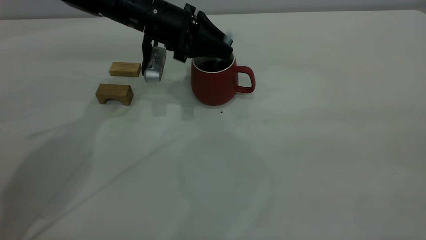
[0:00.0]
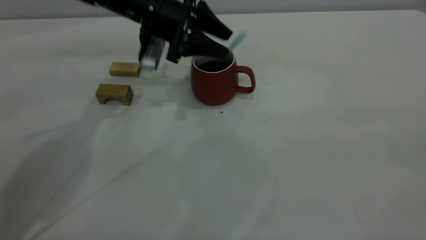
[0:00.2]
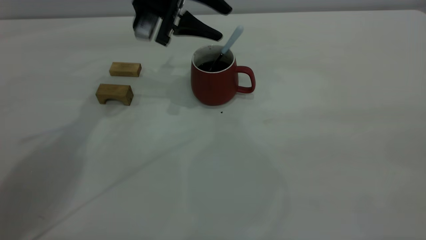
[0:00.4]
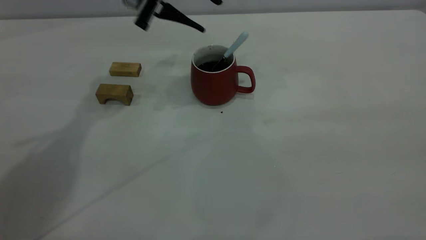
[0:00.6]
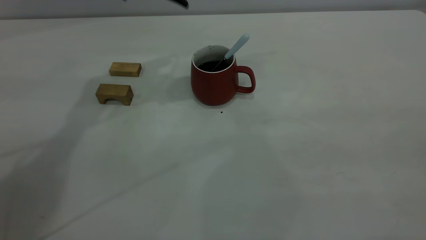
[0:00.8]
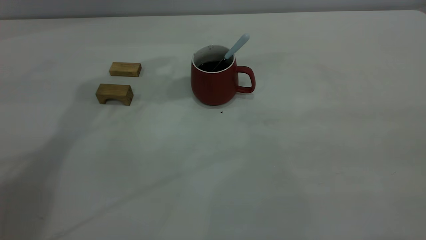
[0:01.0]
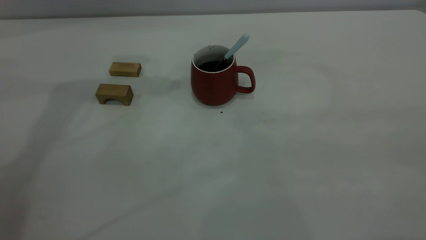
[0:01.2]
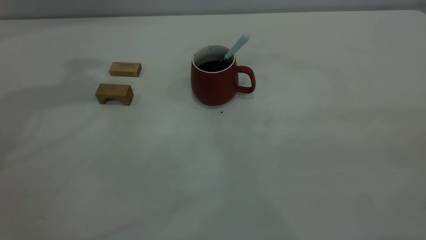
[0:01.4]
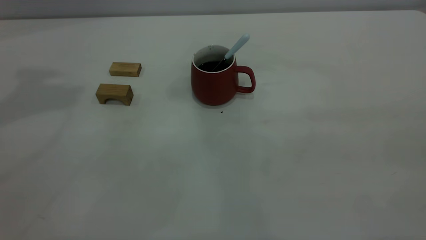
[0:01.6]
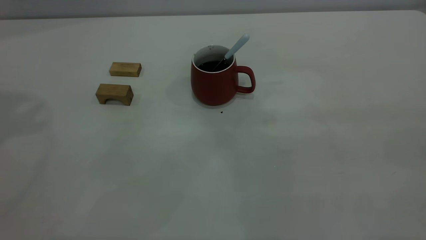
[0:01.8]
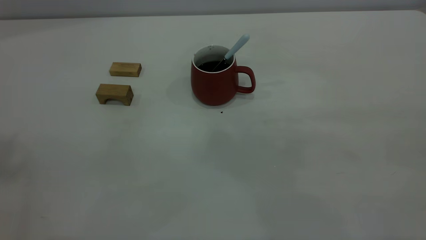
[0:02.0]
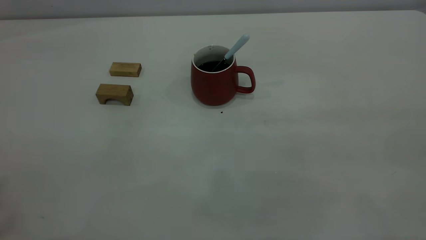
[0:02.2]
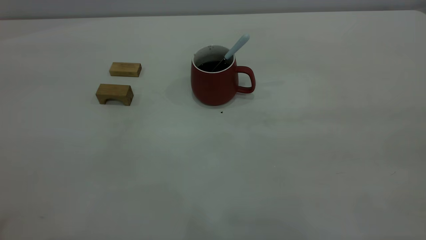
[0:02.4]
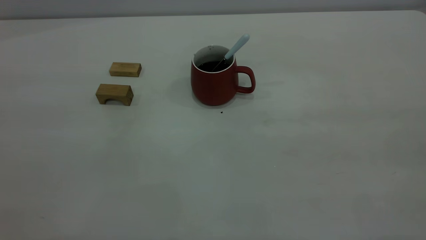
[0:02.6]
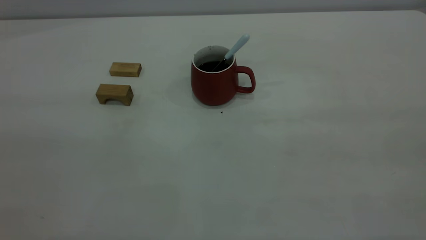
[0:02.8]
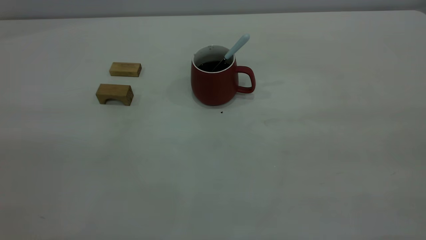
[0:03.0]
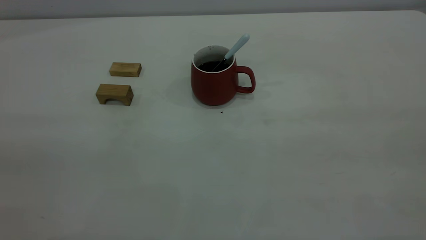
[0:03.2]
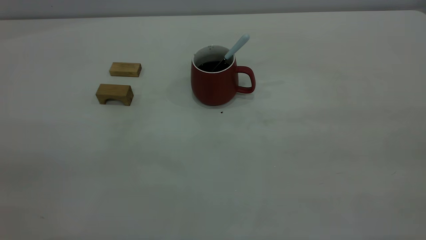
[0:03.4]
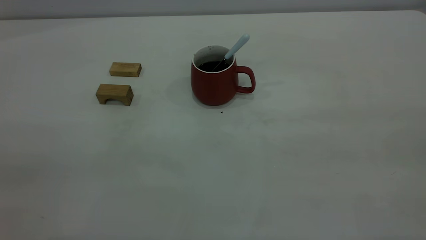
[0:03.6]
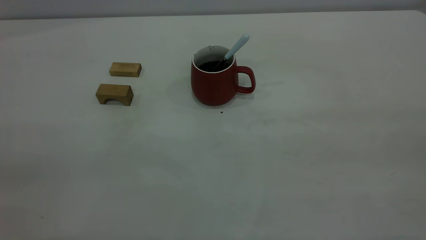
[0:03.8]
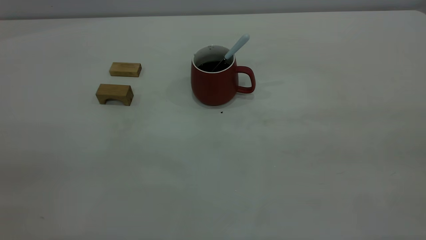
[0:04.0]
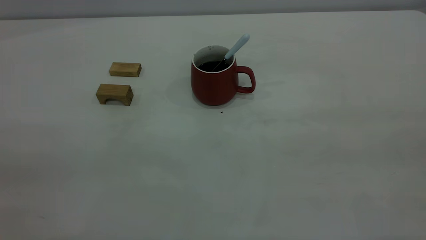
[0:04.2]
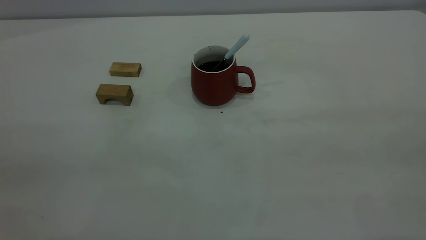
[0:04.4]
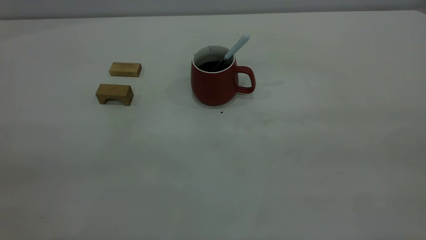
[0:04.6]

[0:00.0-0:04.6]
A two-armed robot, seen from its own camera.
0:00.0 to 0:01.6: The left gripper is displaced upward and to the left by roughly 40 cm, and opens its fingers.
